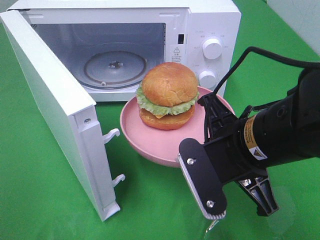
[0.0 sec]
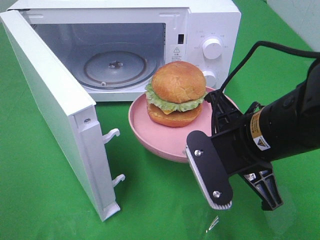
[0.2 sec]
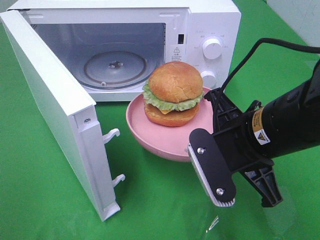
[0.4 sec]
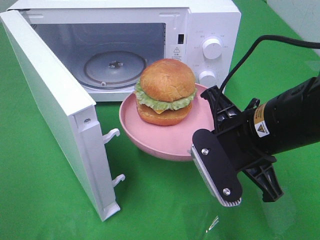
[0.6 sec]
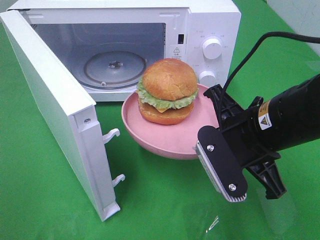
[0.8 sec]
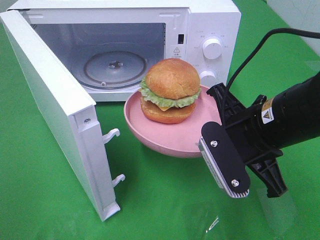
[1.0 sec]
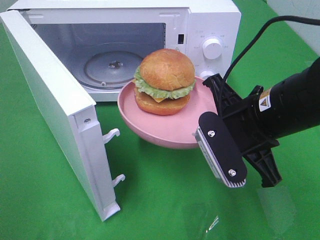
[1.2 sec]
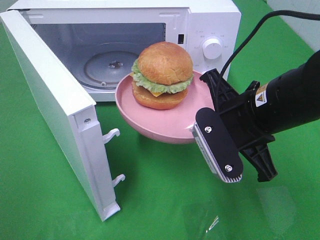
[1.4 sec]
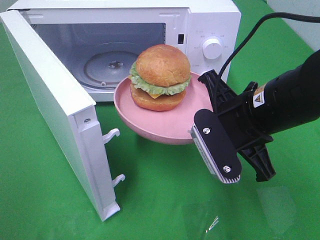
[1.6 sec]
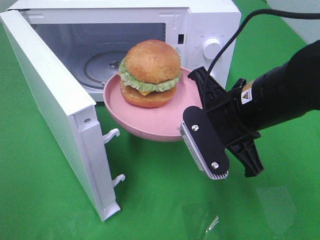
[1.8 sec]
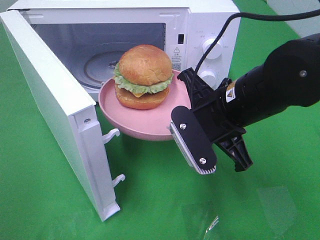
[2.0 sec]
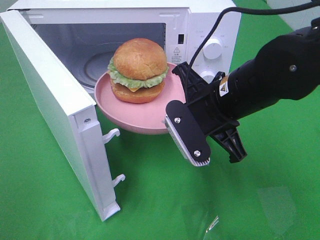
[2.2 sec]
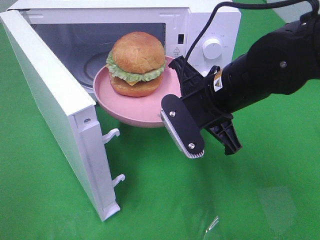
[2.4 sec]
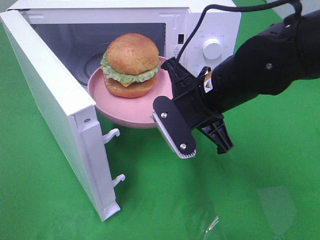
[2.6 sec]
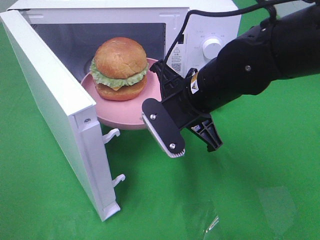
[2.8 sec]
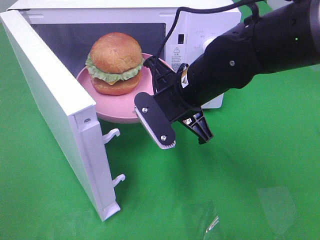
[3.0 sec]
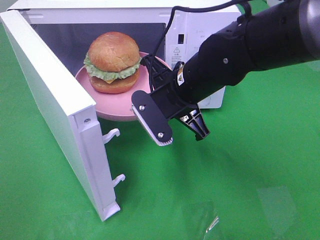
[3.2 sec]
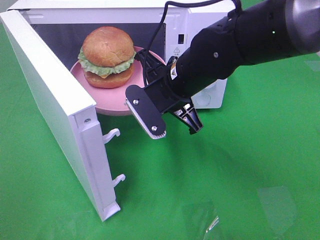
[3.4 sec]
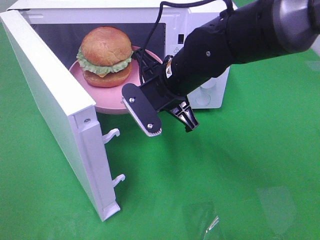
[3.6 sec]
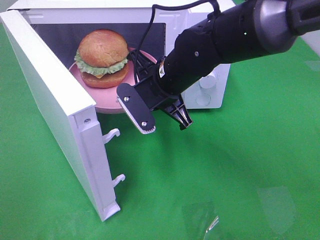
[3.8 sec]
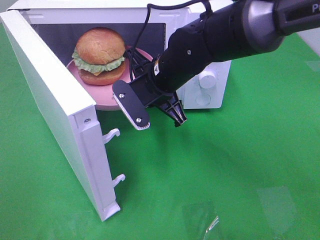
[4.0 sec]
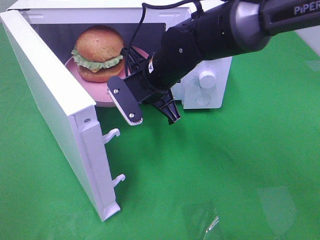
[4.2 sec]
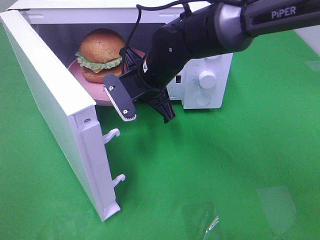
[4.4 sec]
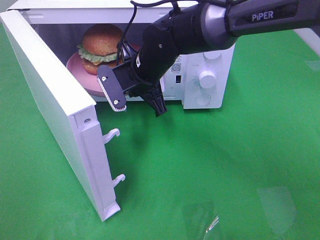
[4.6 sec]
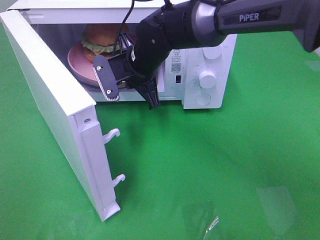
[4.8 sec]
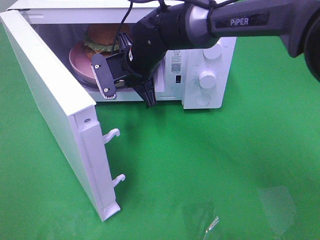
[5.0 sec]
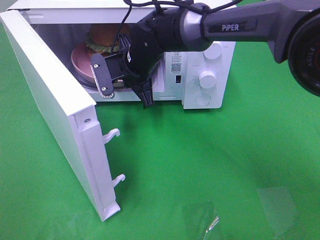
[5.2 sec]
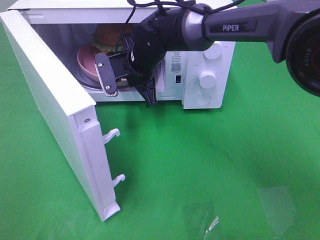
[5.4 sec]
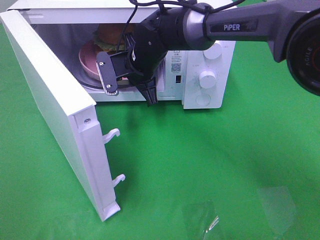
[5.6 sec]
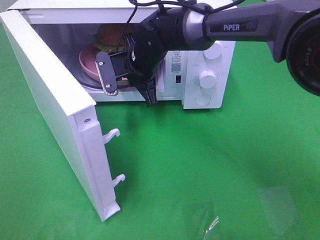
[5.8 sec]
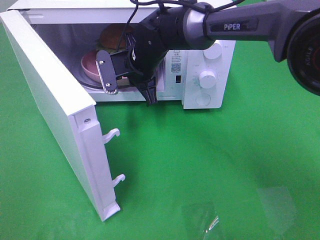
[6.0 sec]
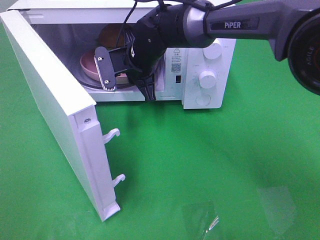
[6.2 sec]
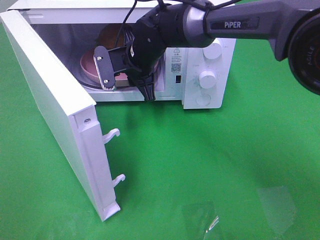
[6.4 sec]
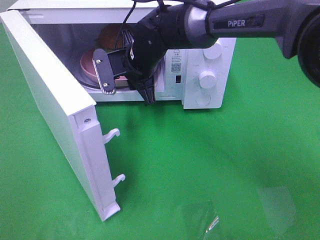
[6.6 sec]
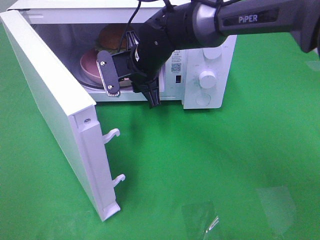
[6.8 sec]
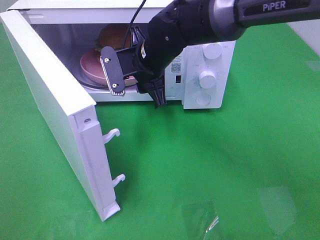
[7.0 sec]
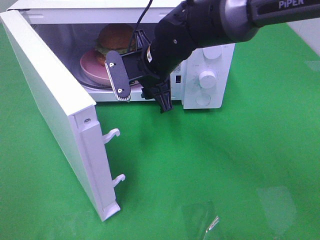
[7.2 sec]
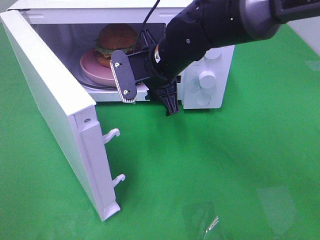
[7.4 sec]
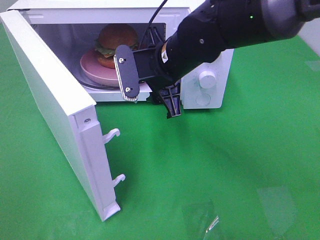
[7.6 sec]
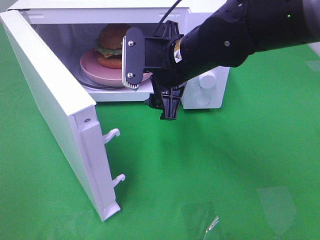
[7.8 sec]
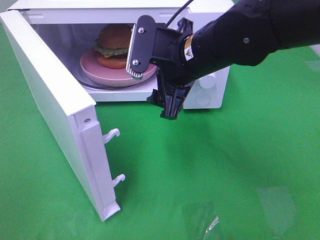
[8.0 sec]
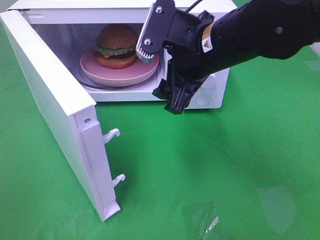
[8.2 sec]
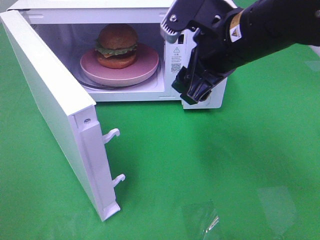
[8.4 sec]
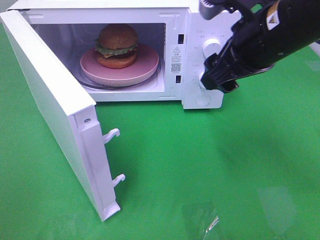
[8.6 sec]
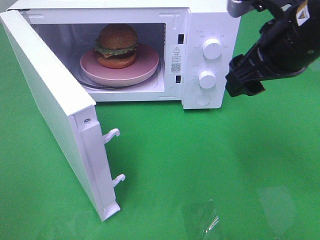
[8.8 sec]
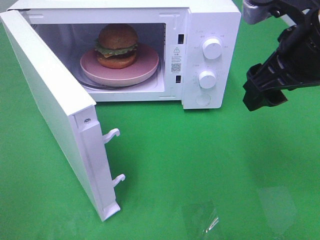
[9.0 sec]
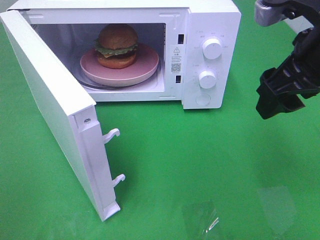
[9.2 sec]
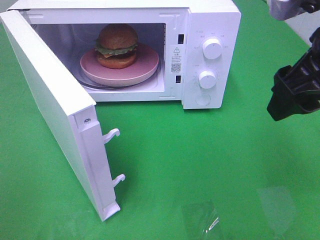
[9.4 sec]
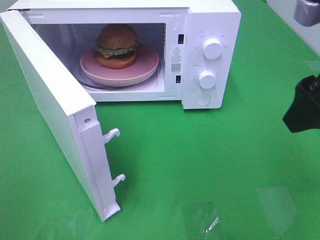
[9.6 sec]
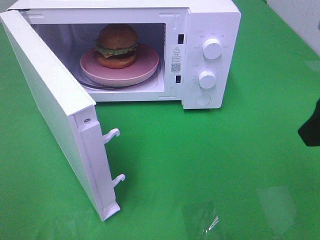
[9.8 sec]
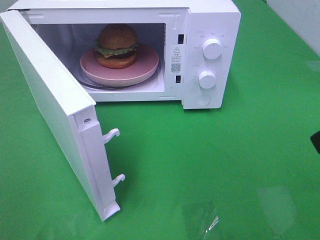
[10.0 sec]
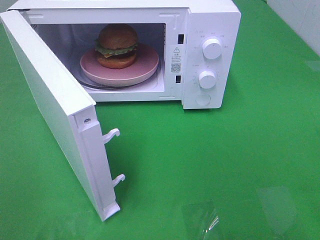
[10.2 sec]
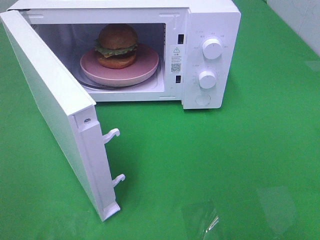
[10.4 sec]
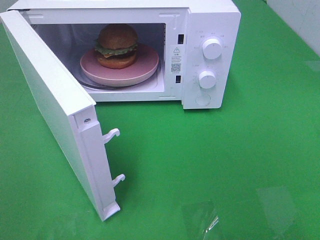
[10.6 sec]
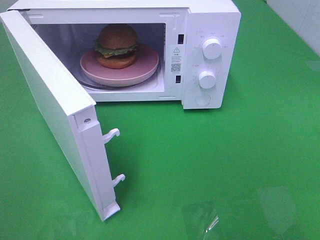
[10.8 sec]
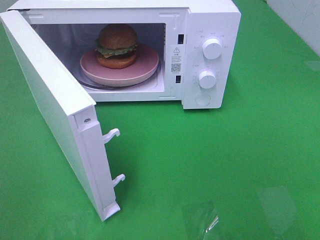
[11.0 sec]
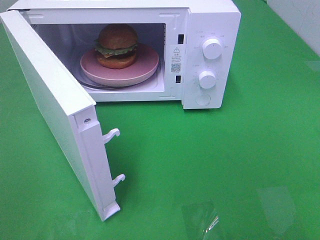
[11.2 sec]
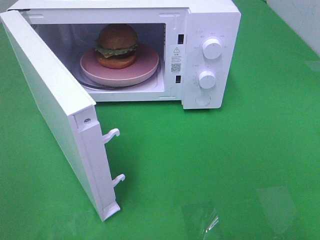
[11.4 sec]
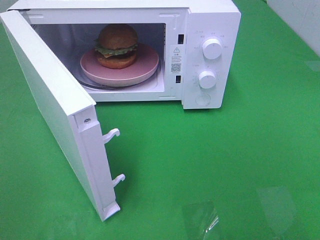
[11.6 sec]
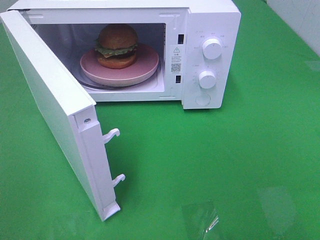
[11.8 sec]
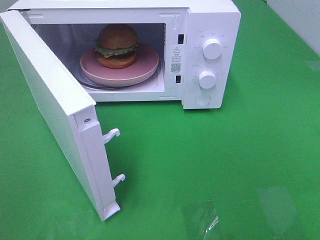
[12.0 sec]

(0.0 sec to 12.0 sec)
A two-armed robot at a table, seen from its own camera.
Task of the whole recording: Heat the burger.
Step, 0.0 sec - 6.2 sec: Right hand: place the plate in the microwave.
1.6 sec - 3.0 sec: The right gripper heads to the left and forward, covering roughly 10 cm.
3.0 sec - 4.4 sec: The right gripper moves forward and to the left, roughly 10 cm.
4.4 sec - 6.0 sec: The right gripper travels forward by roughly 5 cm.
6.0 sec - 7.6 sec: The right gripper heads backward and to the right, covering roughly 10 cm, and opens its fingers.
7.6 sec - 9.0 sec: The right gripper travels to the right, backward and upward by roughly 20 cm.
9.0 sec - 10.4 sec: The right gripper heads backward and to the right, covering approximately 20 cm.

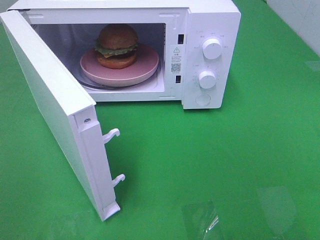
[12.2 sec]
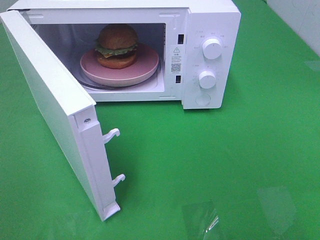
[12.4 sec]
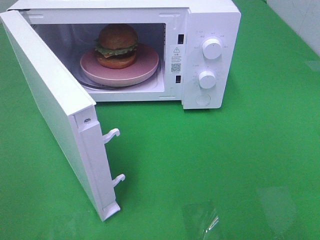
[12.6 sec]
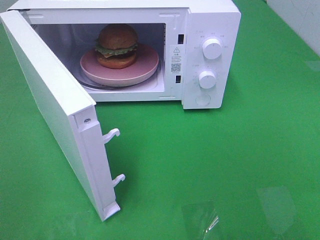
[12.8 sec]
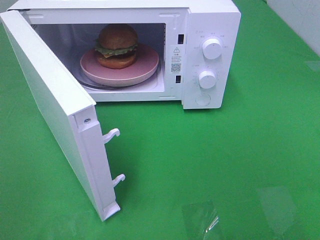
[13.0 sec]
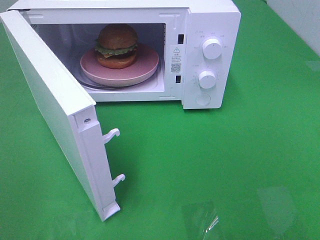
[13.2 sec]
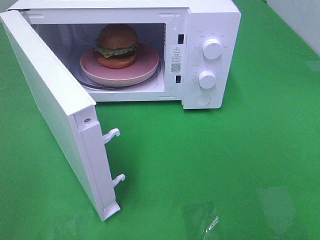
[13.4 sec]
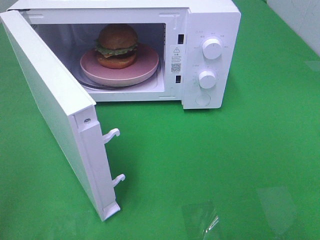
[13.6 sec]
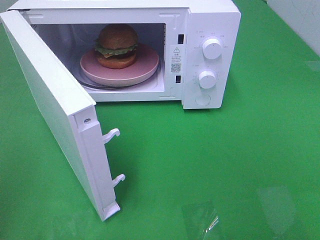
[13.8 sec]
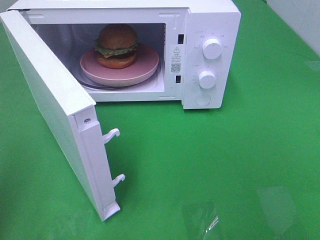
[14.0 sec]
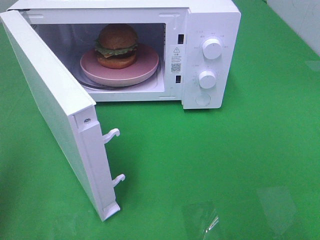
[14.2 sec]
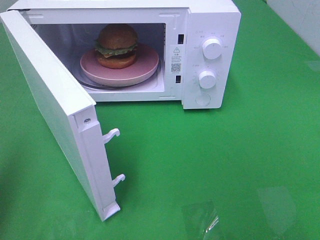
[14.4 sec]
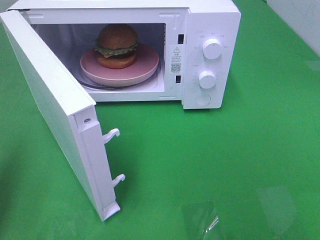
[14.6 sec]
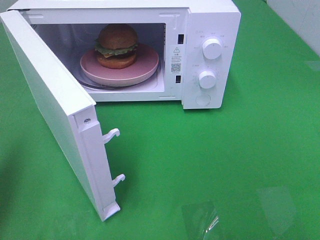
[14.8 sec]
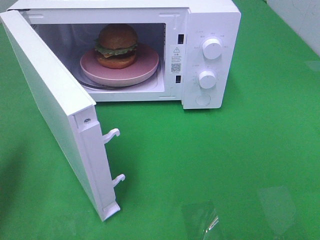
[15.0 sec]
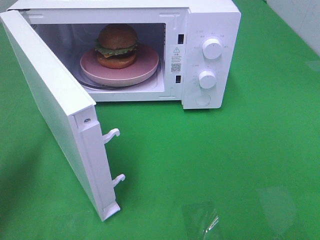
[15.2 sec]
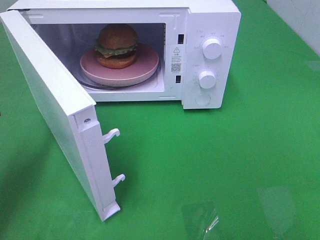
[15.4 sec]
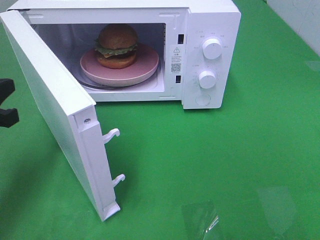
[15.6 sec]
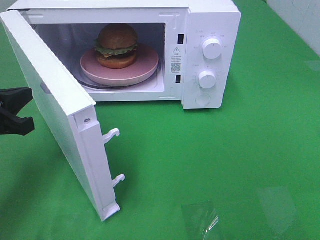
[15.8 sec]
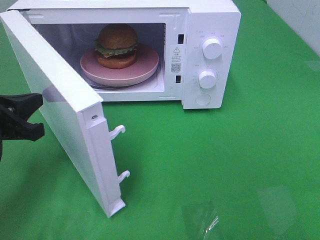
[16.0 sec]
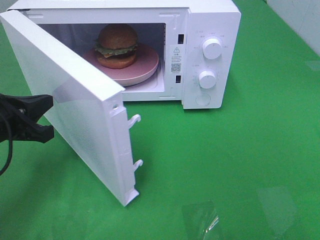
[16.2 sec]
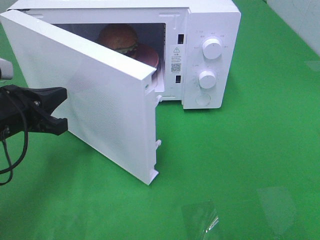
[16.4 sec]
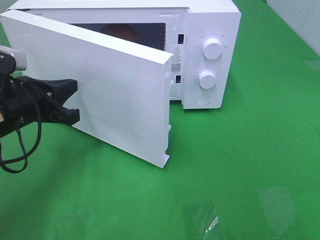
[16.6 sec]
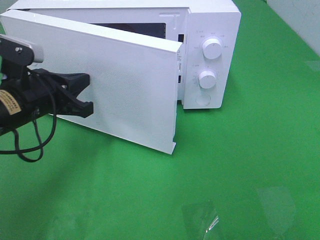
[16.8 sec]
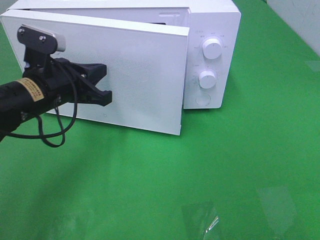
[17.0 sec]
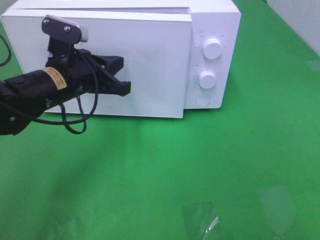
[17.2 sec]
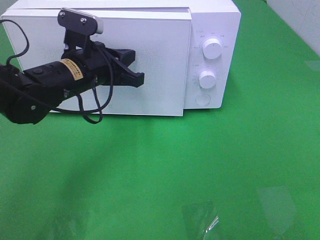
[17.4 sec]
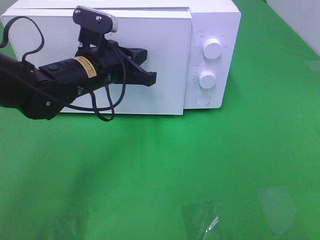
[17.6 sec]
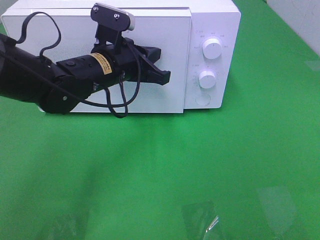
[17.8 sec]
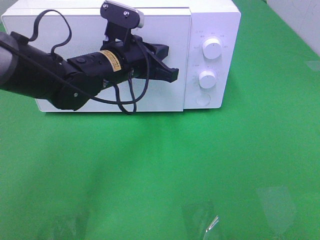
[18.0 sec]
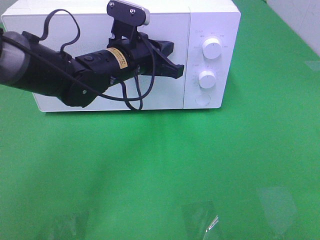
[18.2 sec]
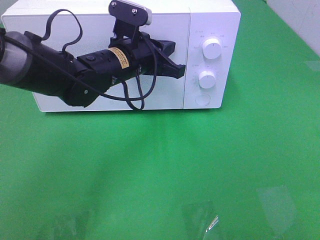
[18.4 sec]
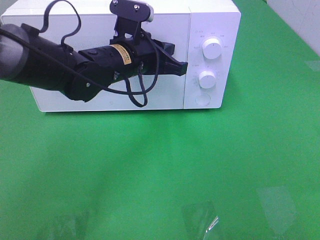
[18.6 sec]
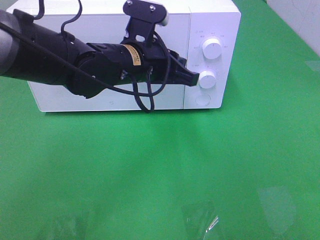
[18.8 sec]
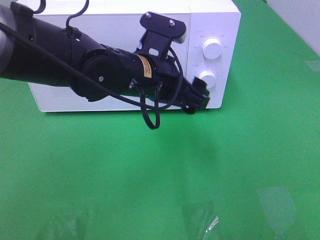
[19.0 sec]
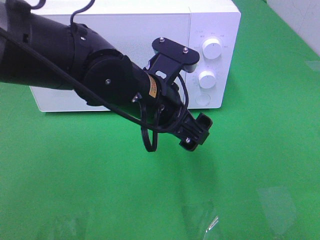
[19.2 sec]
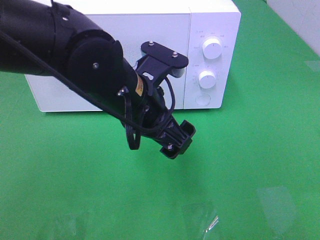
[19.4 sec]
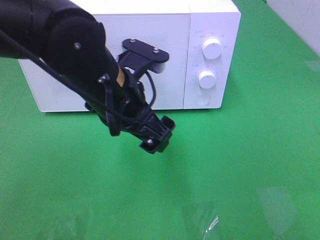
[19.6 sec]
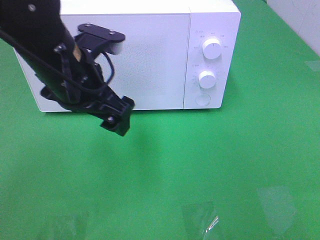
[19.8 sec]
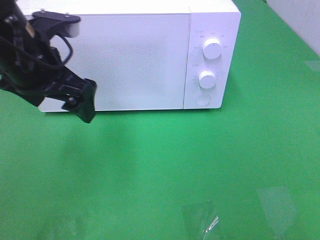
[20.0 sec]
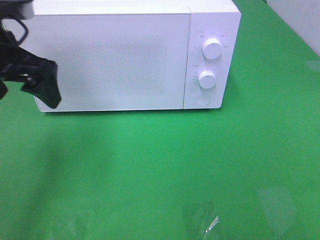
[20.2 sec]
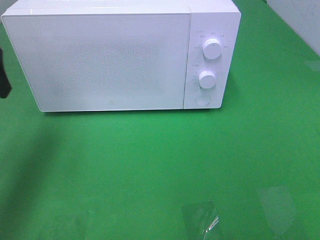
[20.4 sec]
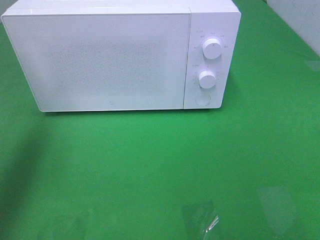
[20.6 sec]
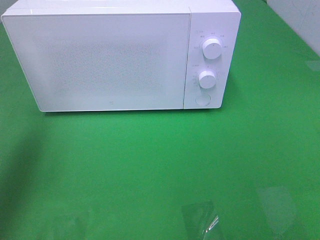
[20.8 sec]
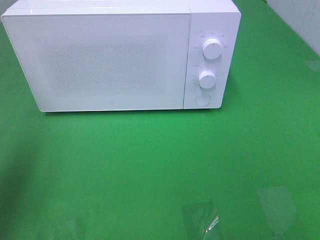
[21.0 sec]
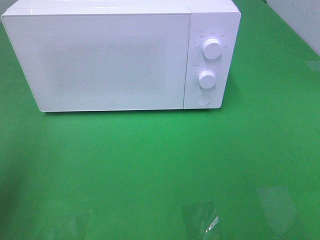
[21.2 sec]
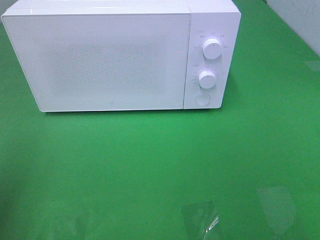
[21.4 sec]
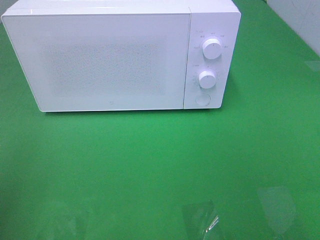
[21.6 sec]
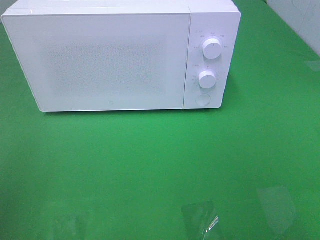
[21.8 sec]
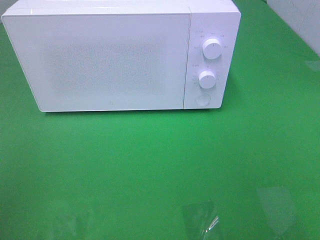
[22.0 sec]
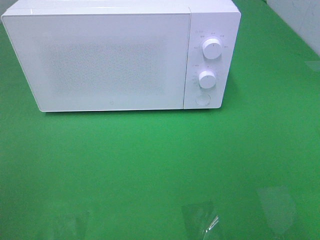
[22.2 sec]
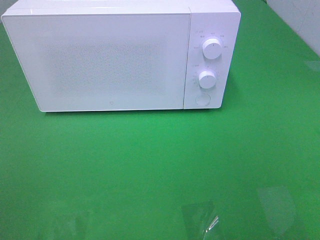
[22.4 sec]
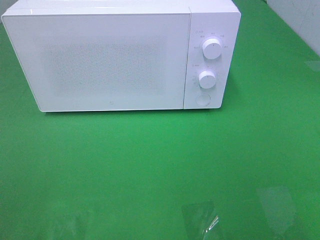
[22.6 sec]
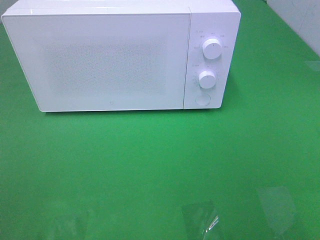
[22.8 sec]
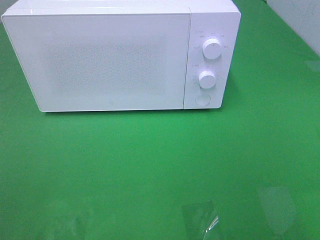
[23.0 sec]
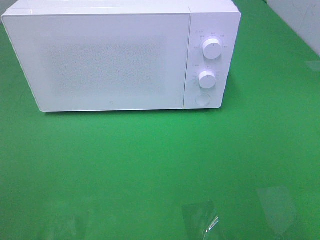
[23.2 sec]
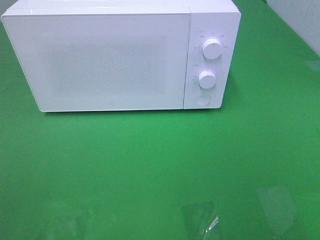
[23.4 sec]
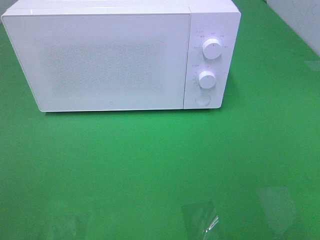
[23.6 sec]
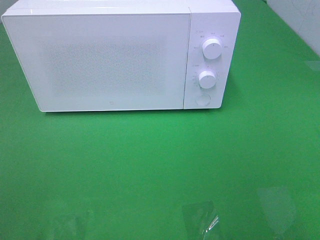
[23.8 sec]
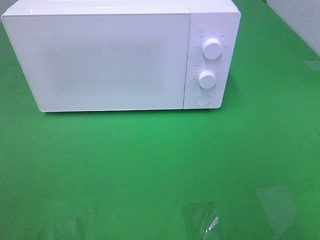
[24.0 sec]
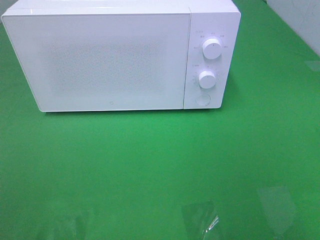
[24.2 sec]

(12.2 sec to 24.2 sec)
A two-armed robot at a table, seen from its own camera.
Task of the whole recording: Heat the burger.
Step, 12.2 sec - 18.6 sec: Left hand: close the microwave door.
13.8 sec - 15.2 sec: The left gripper heads forward and downward, covering roughly 20 cm.
15.2 sec - 16.6 sec: The left gripper travels to the right and forward by about 10 cm.
16.6 sec - 18.2 sec: The left gripper heads to the right and forward, covering about 20 cm.
18.2 sec - 19.8 sec: The left gripper travels backward, to the left and upward by roughly 10 cm, and opens up.
19.8 sec - 21.2 sec: The left gripper travels to the left and backward by some 25 cm.
21.2 sec - 22.6 sec: The left gripper goes about 15 cm backward.
